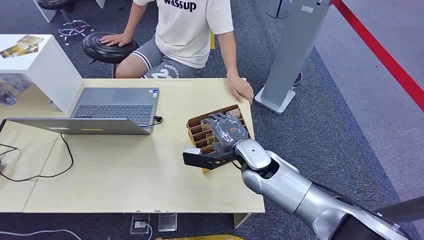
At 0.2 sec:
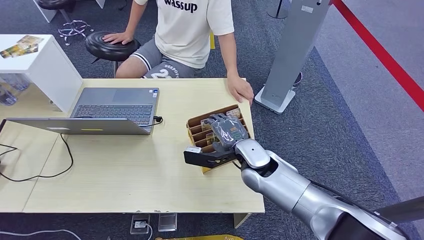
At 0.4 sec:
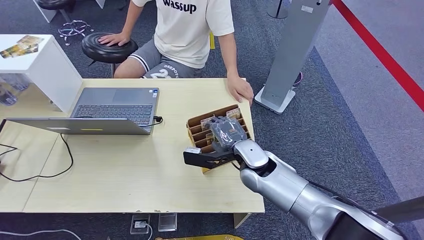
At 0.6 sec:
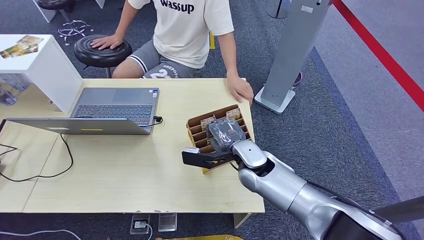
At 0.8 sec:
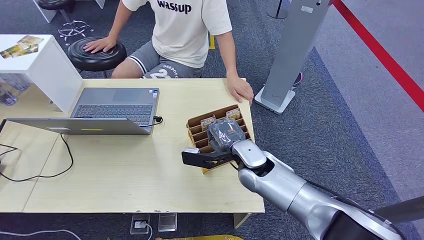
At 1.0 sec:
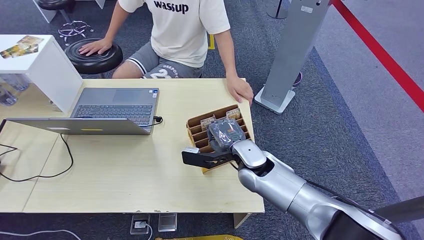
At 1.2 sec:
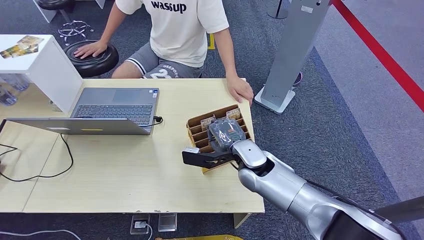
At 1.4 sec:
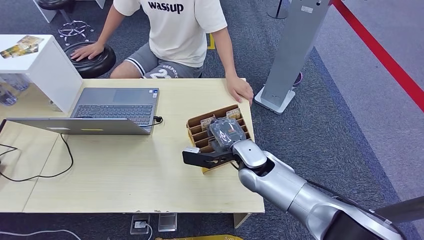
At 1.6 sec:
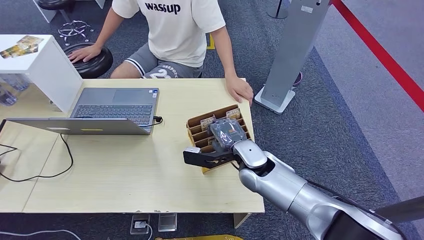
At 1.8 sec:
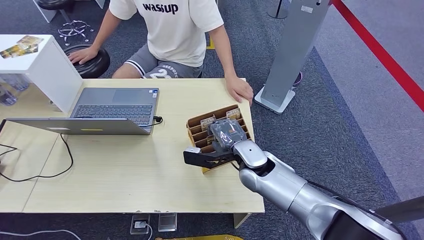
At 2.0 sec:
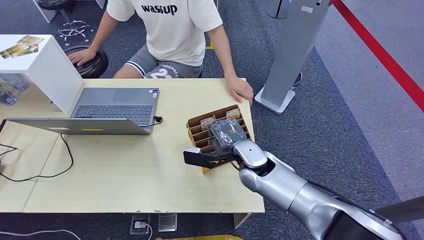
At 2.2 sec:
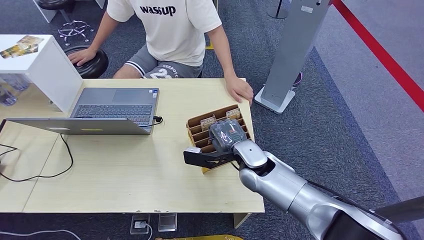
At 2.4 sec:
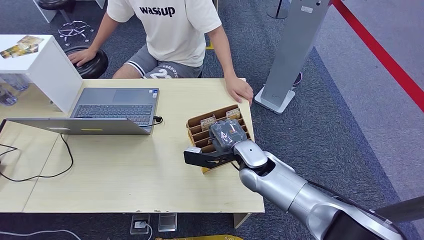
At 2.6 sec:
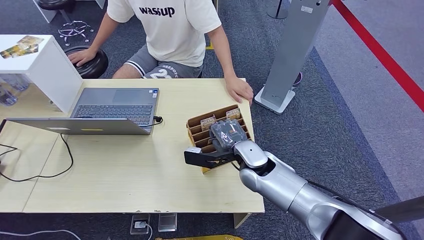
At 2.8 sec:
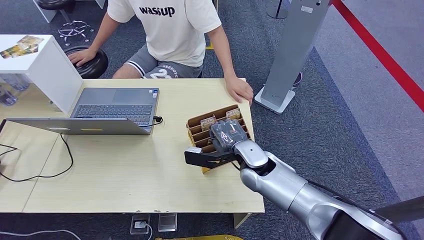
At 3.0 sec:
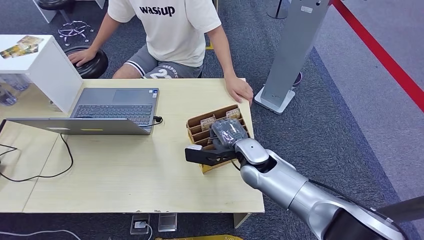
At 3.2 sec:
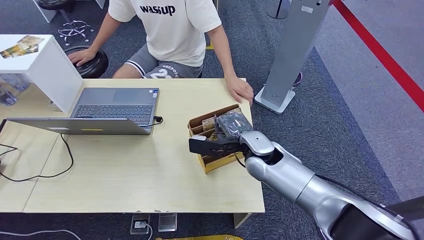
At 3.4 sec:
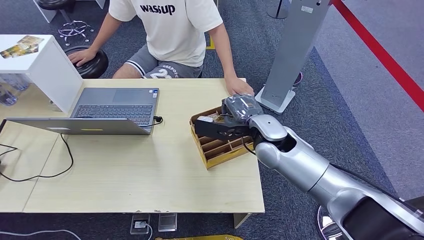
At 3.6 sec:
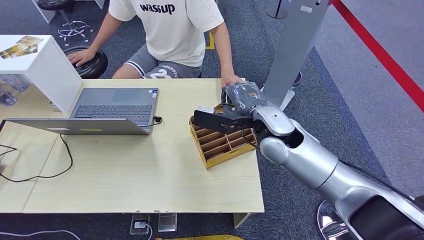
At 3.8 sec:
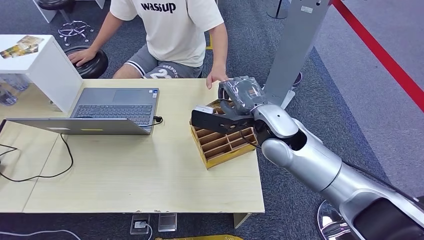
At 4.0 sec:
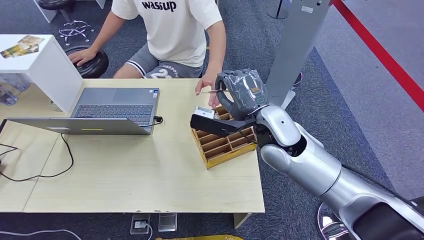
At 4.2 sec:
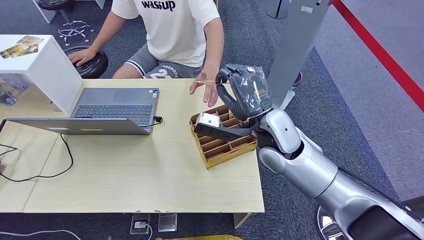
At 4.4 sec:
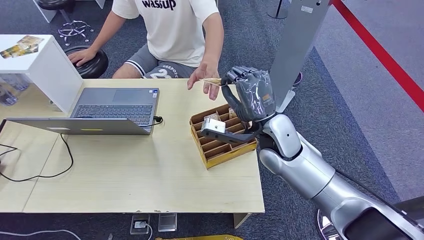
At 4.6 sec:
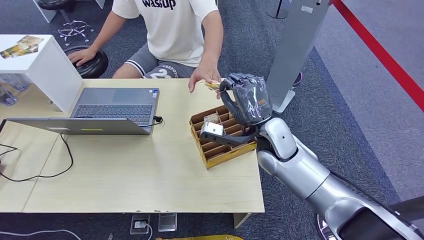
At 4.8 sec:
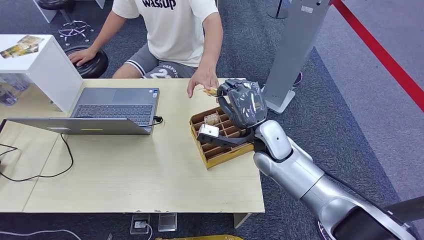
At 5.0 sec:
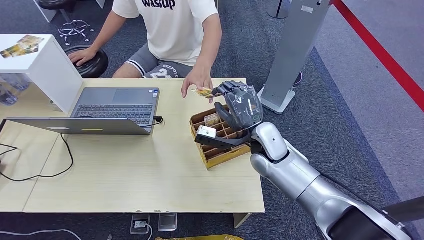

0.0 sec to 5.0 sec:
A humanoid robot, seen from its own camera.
Step, 0.0 sec to 3.4 sec: Pick up the room card from the card holder.
Step, 4.2 sec to 5.0 sec: Hand the room card to the target.
1.6 sec to 3.4 sec: The right hand heads upward, covering about 15 cm.
3.4 sec to 5.0 sec: The right hand moves downward, approximately 10 cm.
